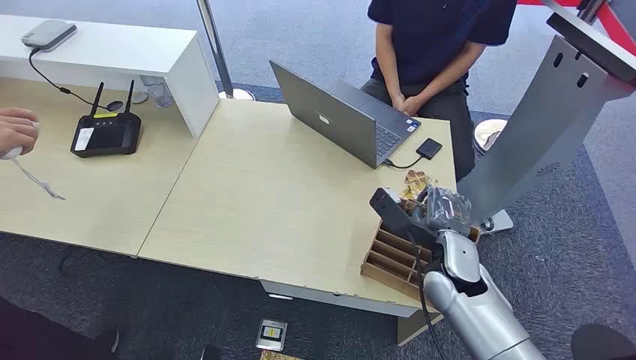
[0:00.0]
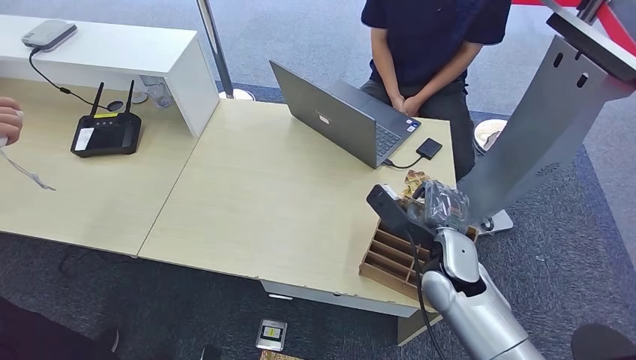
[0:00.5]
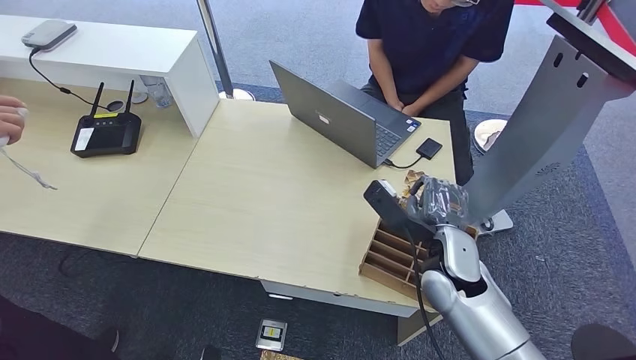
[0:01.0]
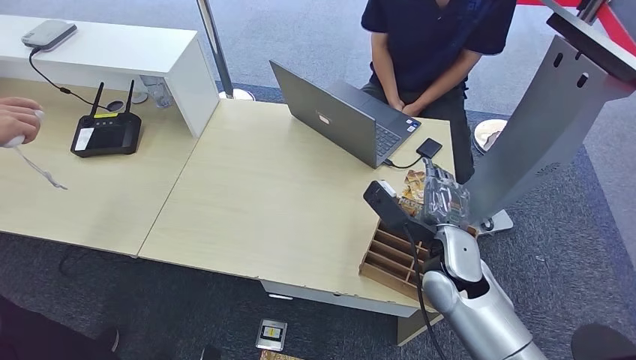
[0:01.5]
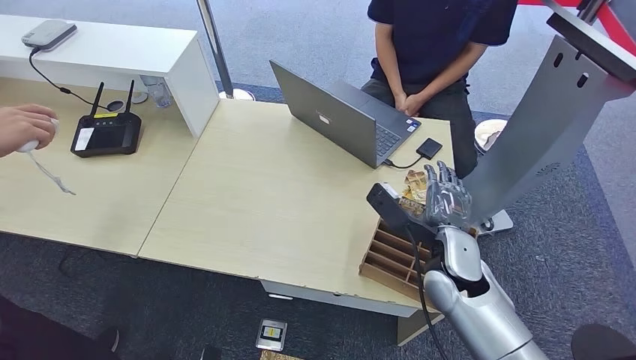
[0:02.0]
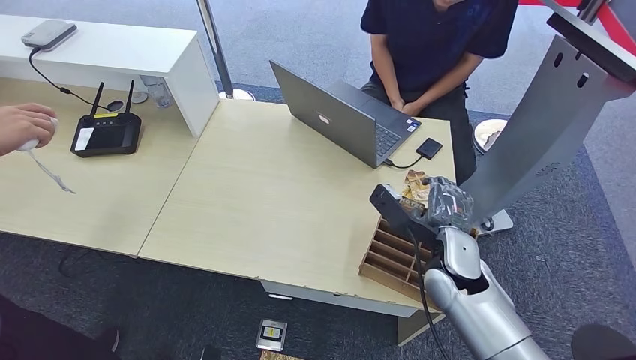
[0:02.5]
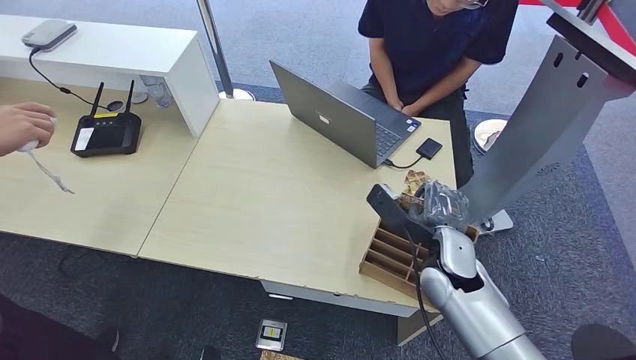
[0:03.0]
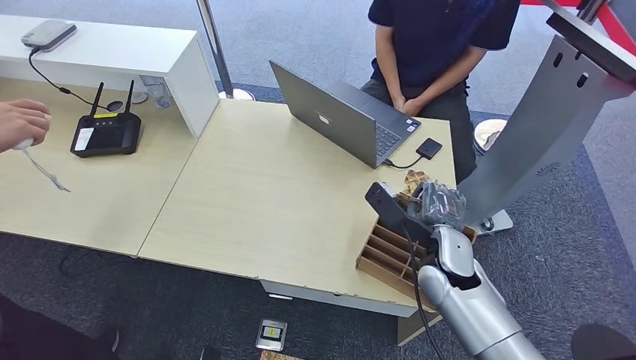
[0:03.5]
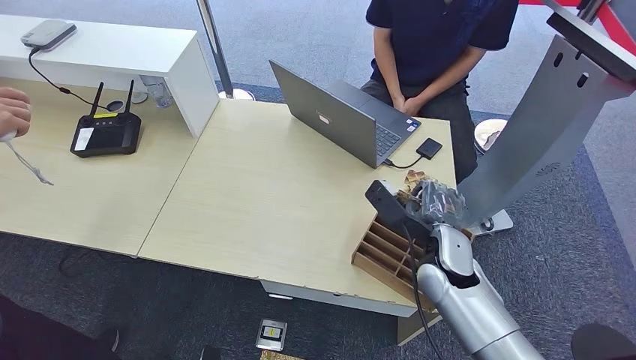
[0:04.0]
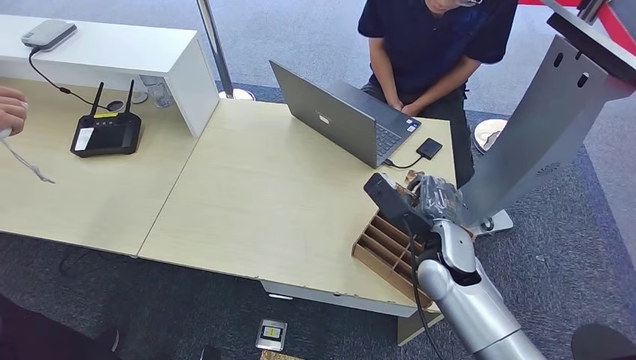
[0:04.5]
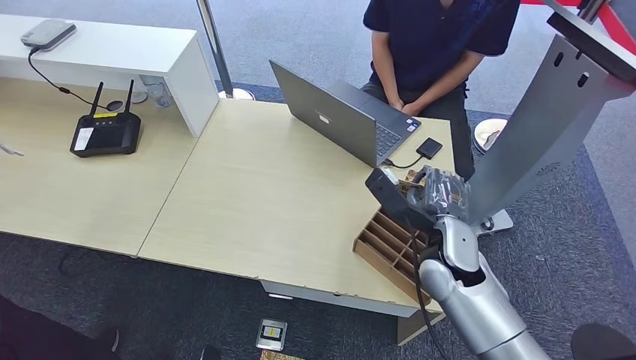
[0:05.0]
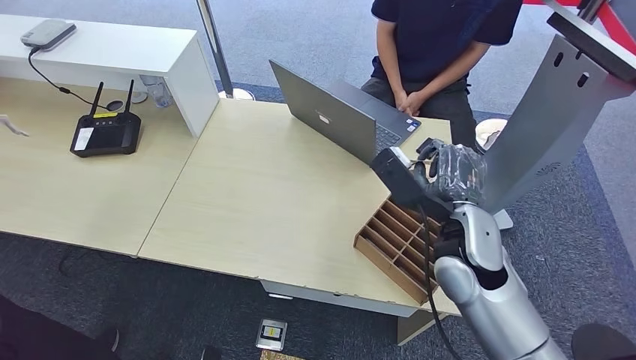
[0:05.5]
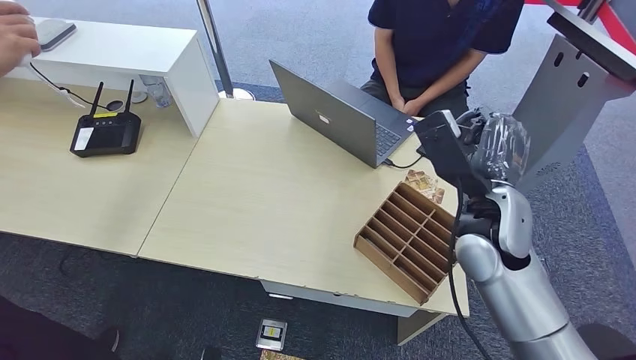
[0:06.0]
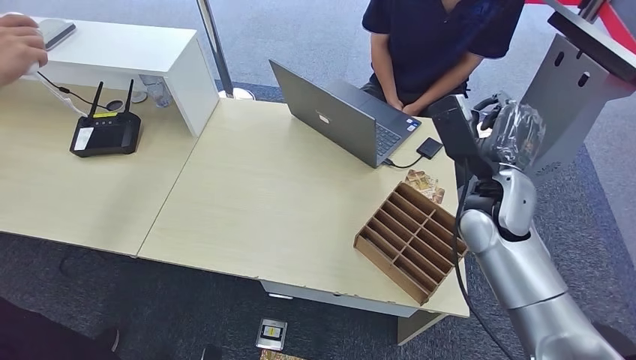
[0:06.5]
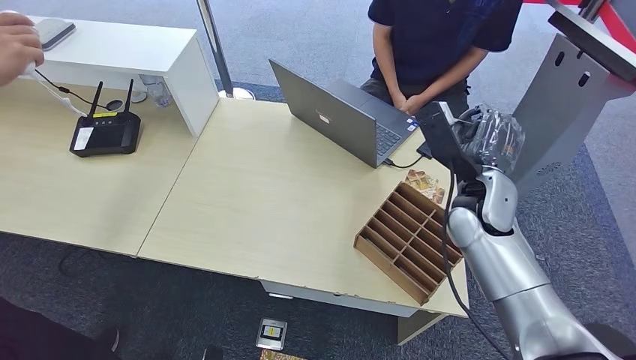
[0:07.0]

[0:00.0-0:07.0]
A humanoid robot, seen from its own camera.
Step, 0:00.0 to 0:05.0: Pick up the key card from the card box.
Step, 0:05.5 to 0:07.0: Hand the key card to the target.
0:02.0 to 0:05.0: There are only small adjustments of the hands.
0:05.0 to 0:07.0: The right hand heads forward and upward, covering roughly 10 cm.
